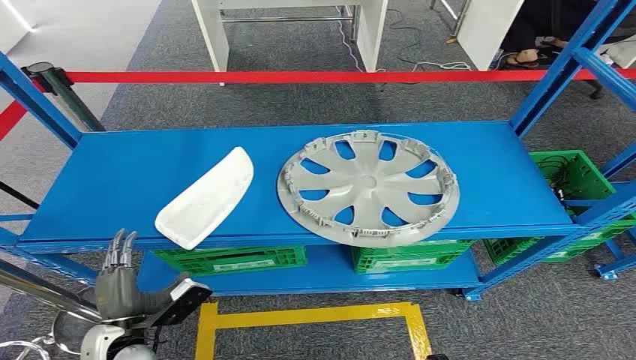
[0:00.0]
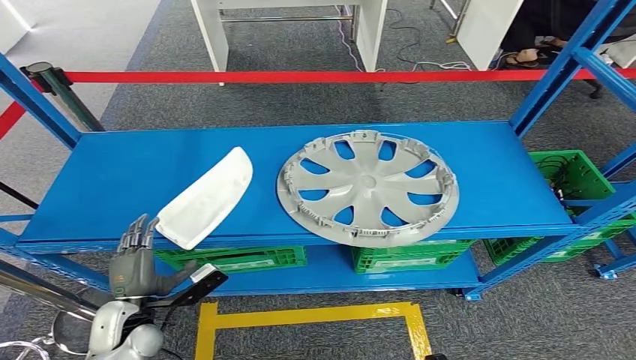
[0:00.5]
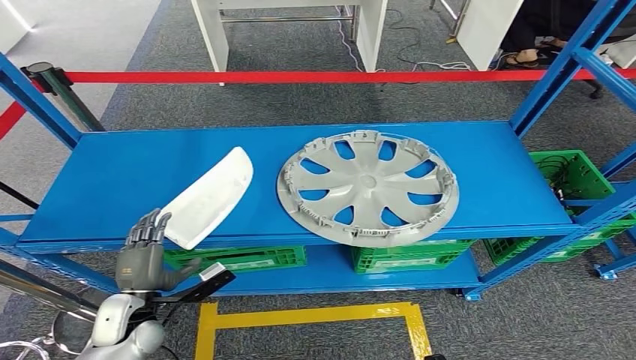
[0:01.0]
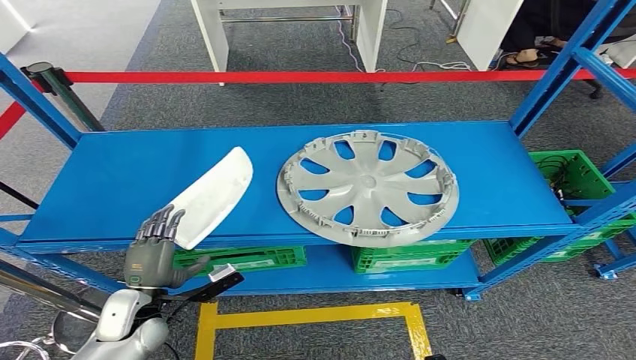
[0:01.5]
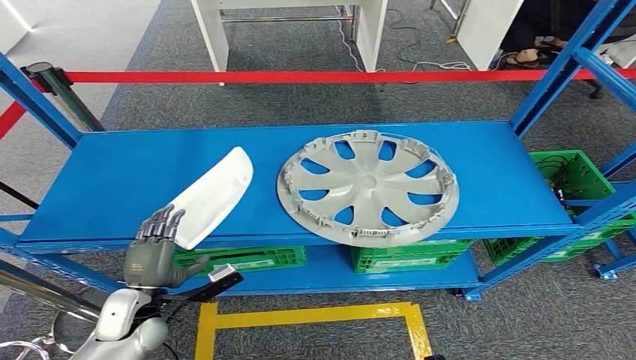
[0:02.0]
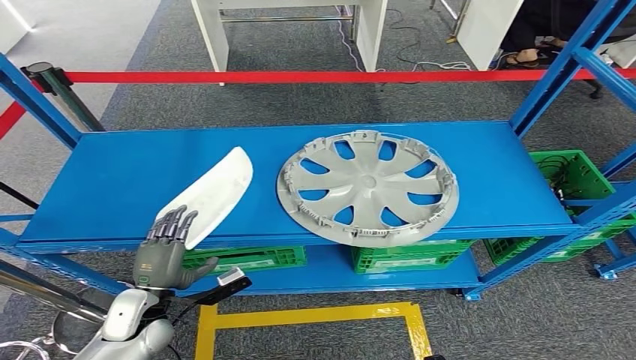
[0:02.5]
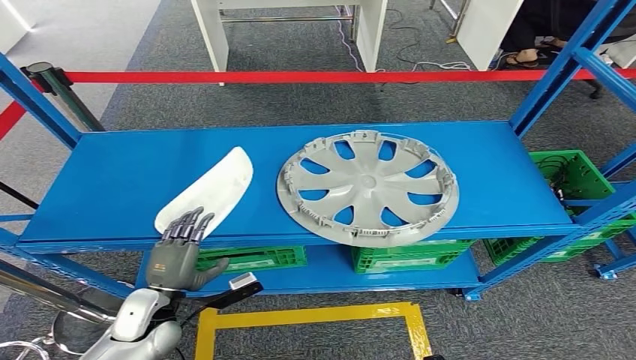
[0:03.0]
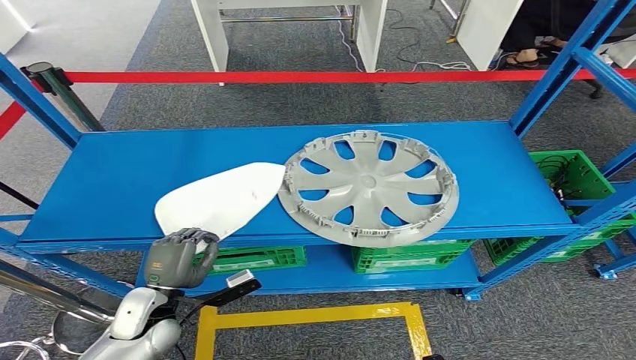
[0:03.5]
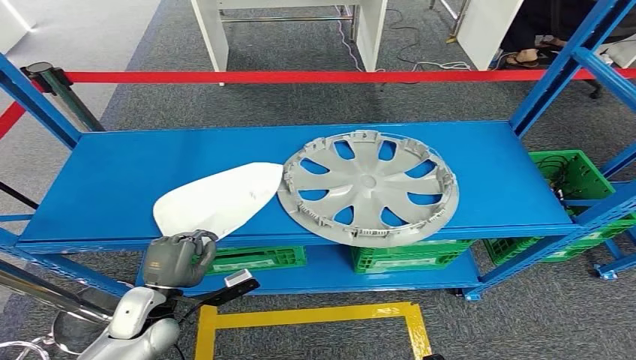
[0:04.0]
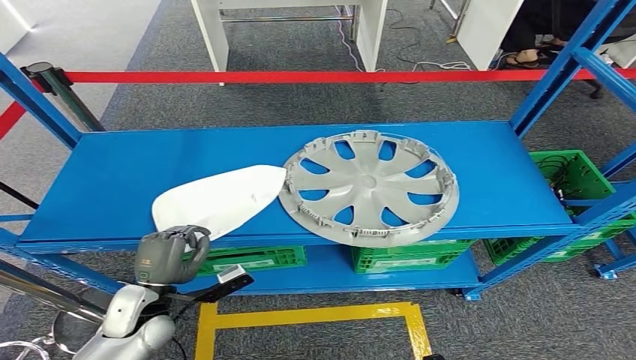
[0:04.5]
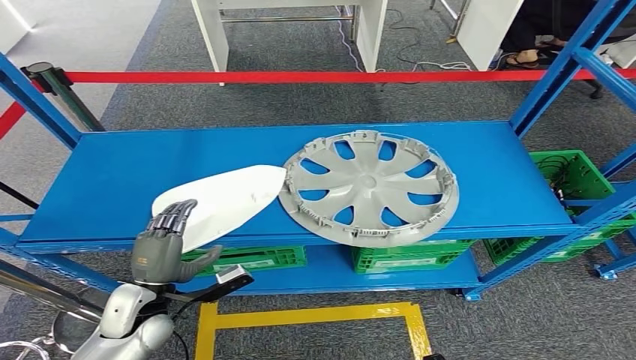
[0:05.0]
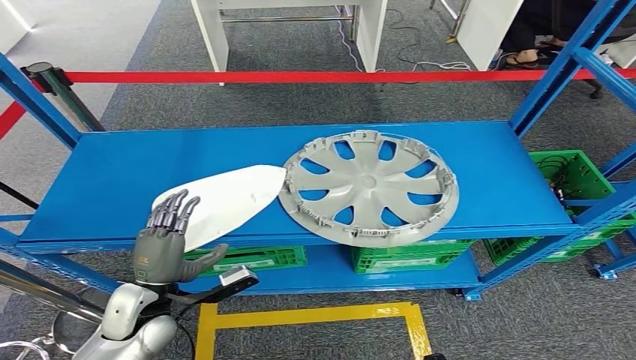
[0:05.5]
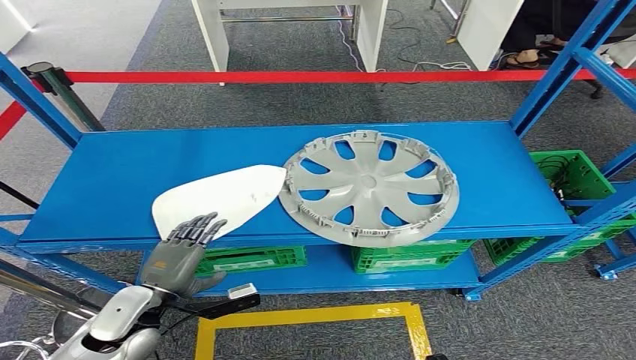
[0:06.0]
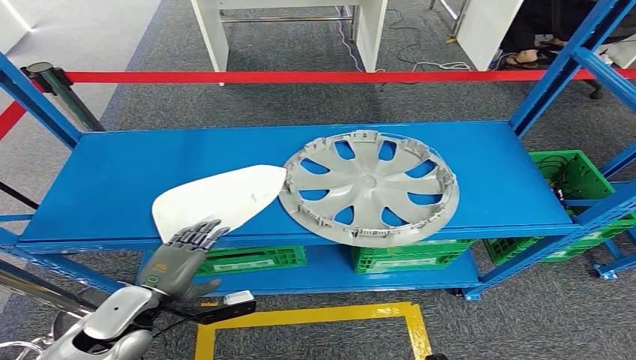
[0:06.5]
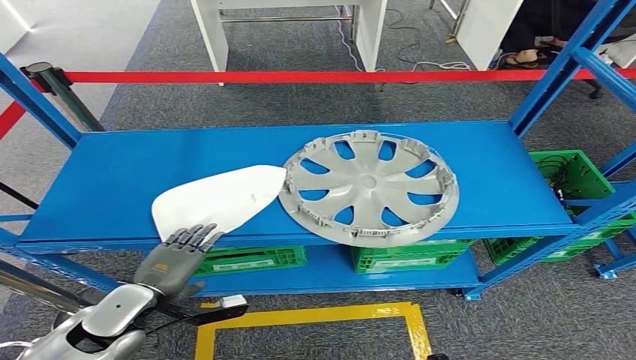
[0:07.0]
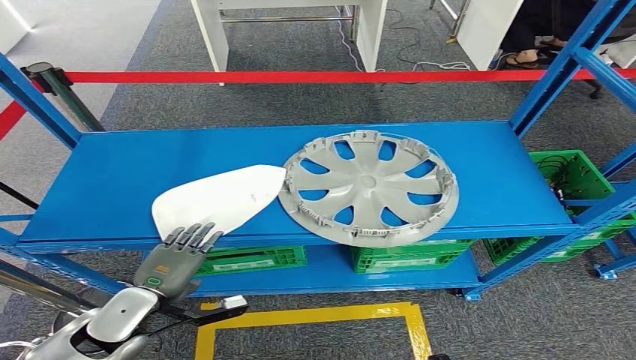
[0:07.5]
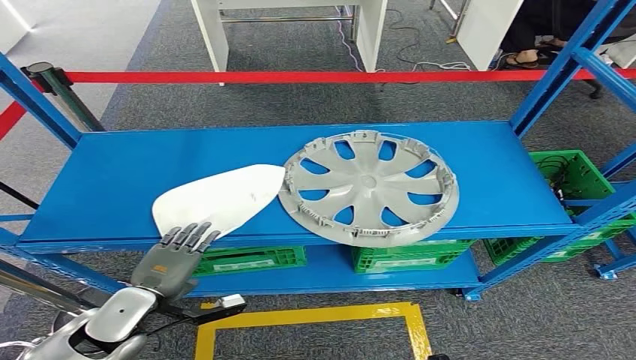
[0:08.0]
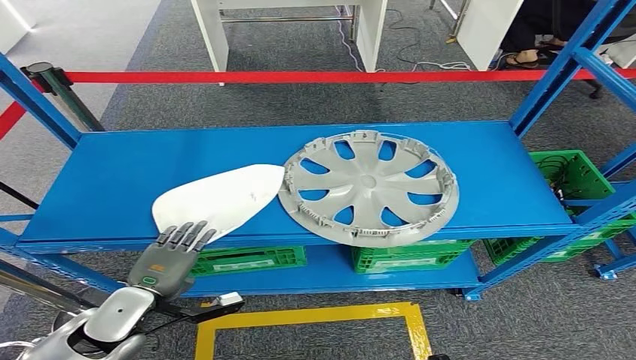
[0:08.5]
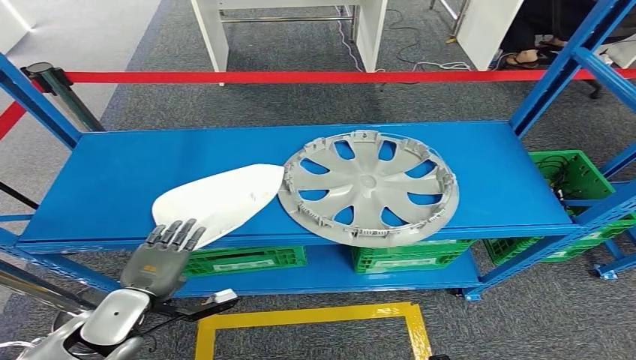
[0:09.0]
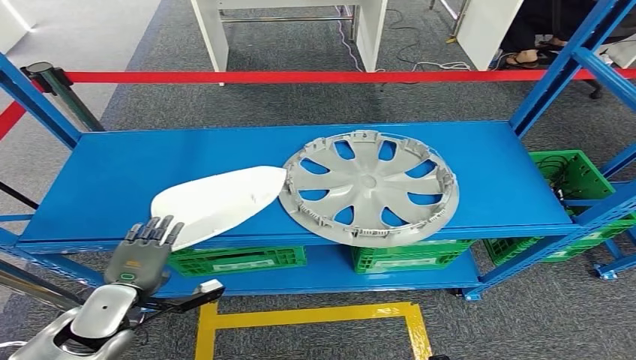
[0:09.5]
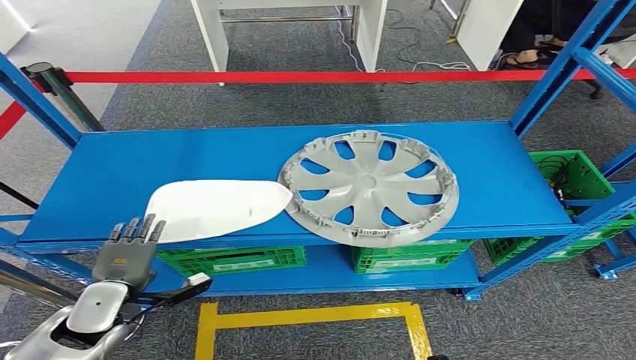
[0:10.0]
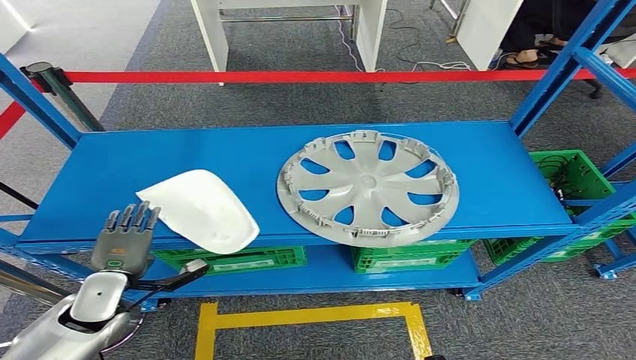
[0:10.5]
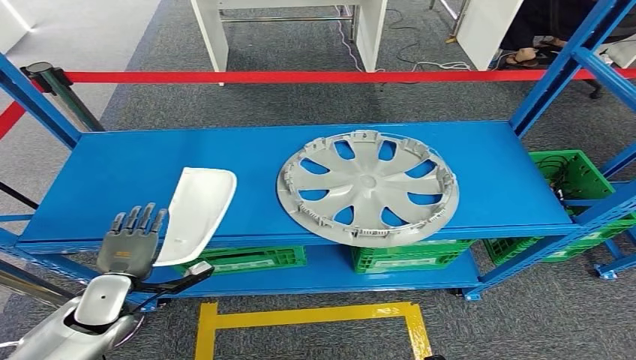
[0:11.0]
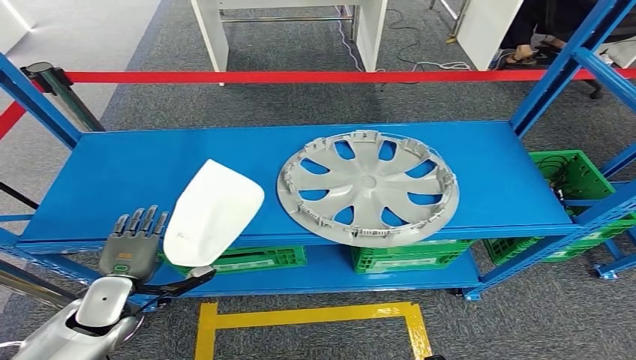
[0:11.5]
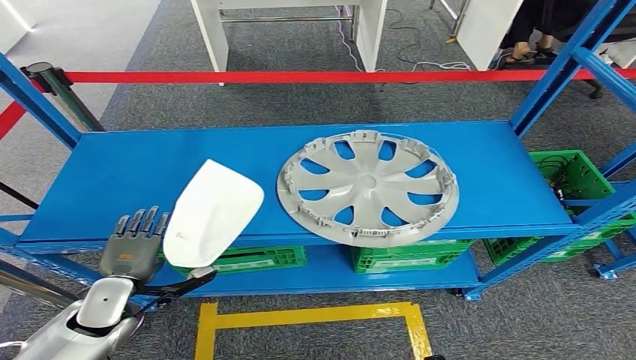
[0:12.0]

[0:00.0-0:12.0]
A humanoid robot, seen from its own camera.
0:02.0 to 0:06.0: There are only small adjustments of the hands.
0:08.0 to 0:10.0: The hands move only a little.
0:10.0 to 0:12.0: The hands move only a little.

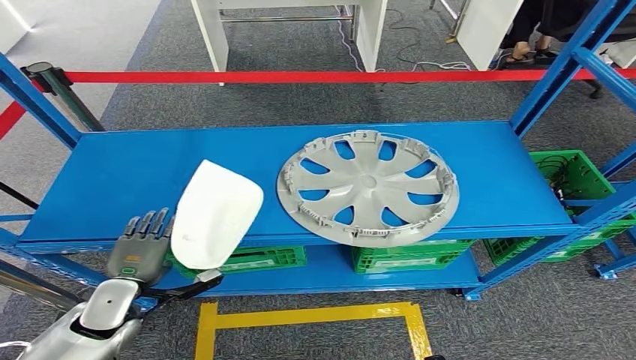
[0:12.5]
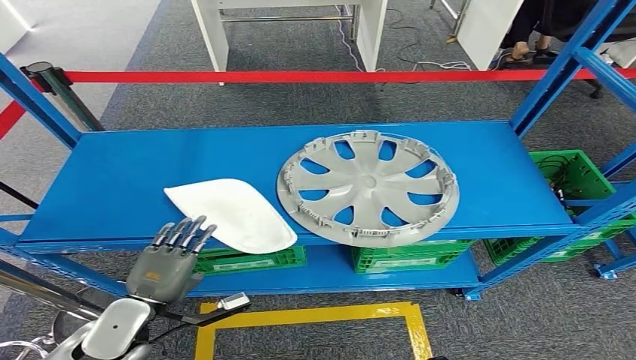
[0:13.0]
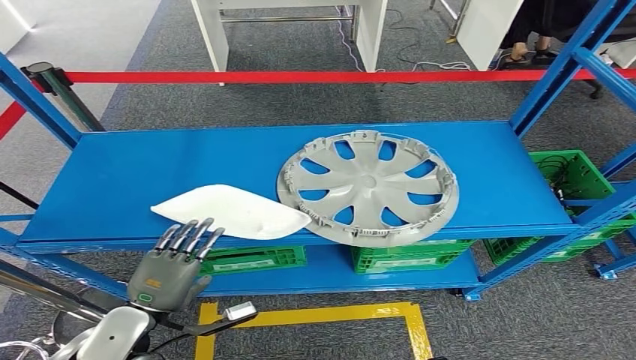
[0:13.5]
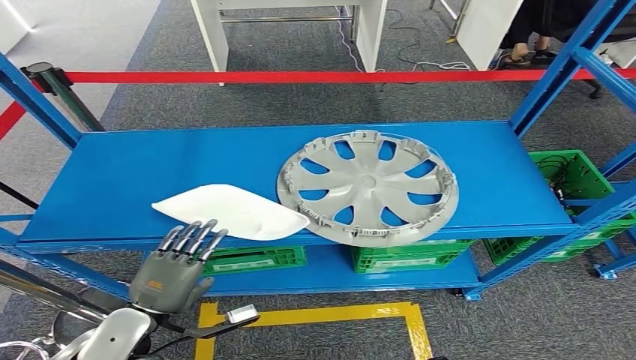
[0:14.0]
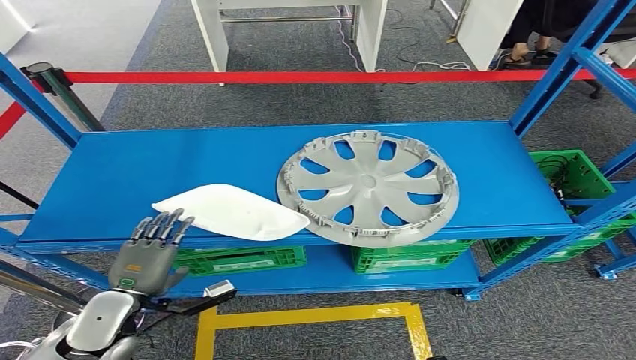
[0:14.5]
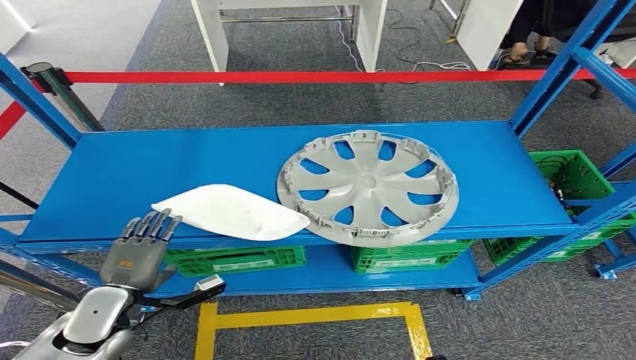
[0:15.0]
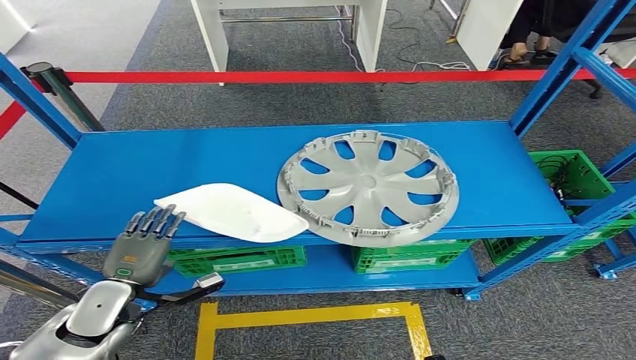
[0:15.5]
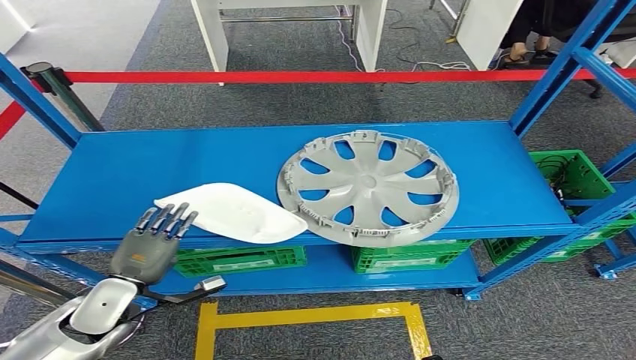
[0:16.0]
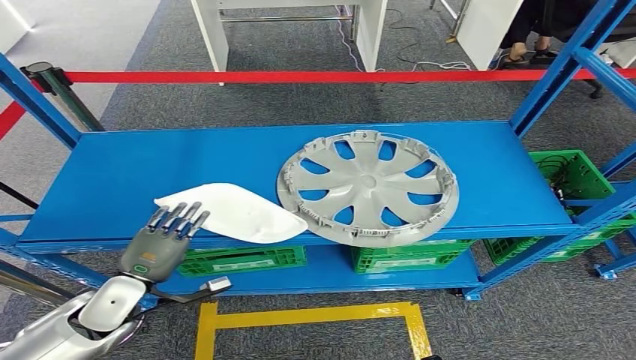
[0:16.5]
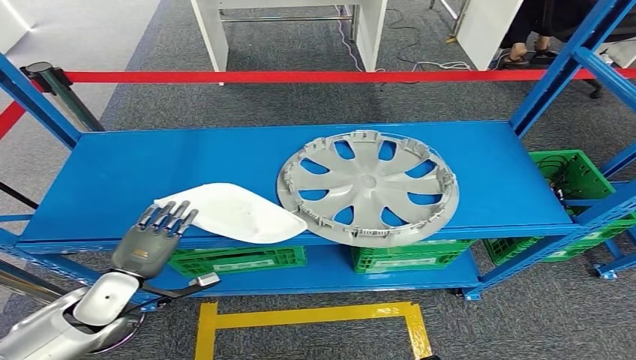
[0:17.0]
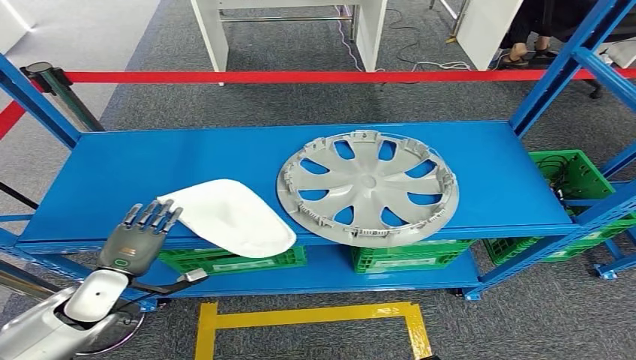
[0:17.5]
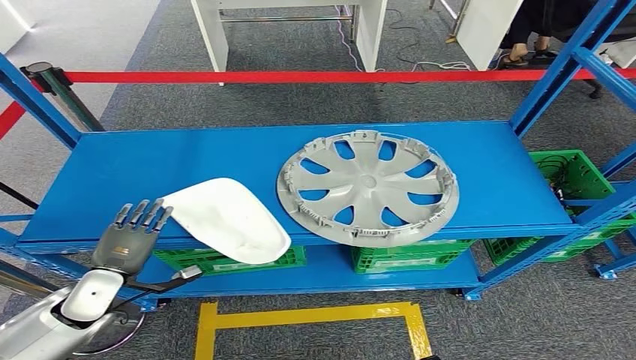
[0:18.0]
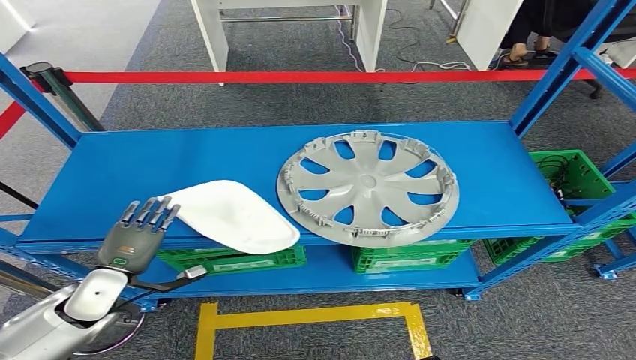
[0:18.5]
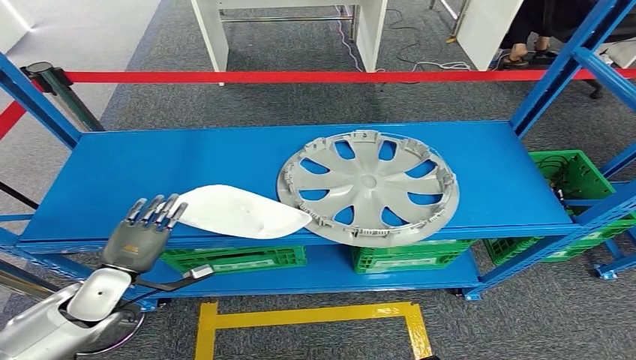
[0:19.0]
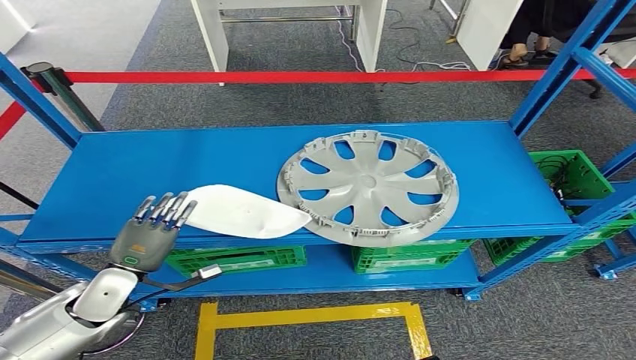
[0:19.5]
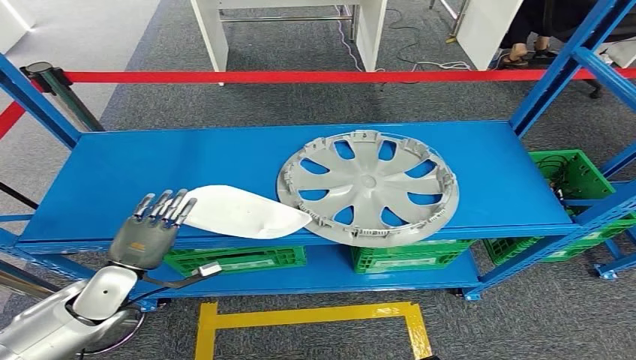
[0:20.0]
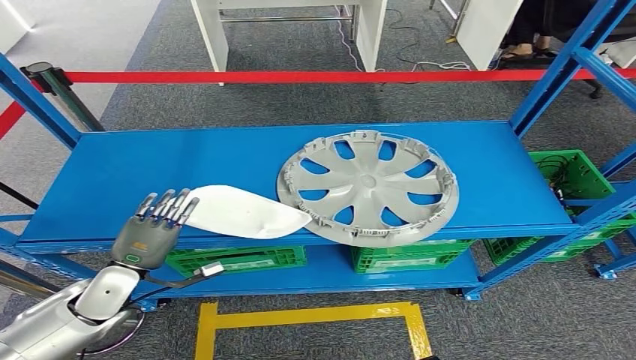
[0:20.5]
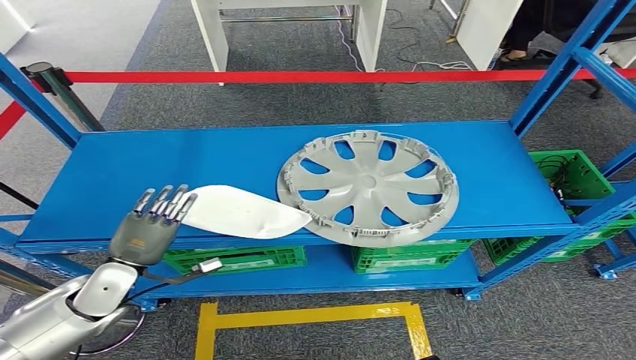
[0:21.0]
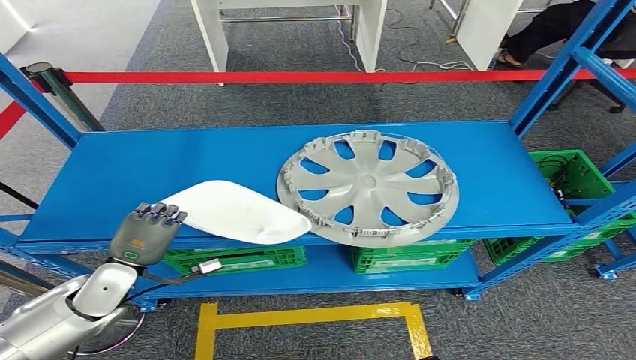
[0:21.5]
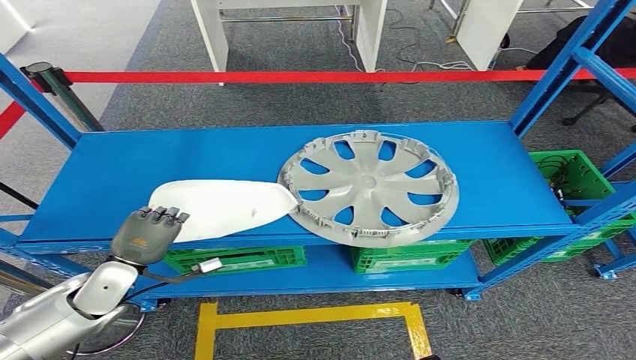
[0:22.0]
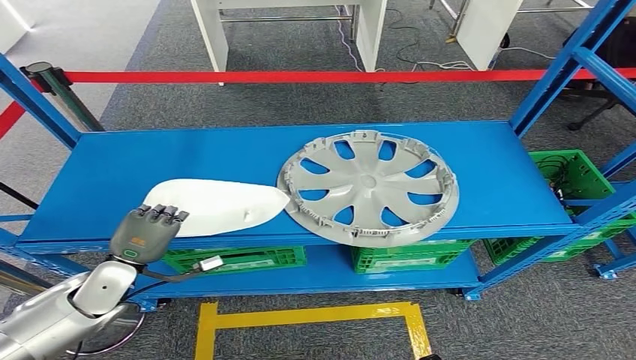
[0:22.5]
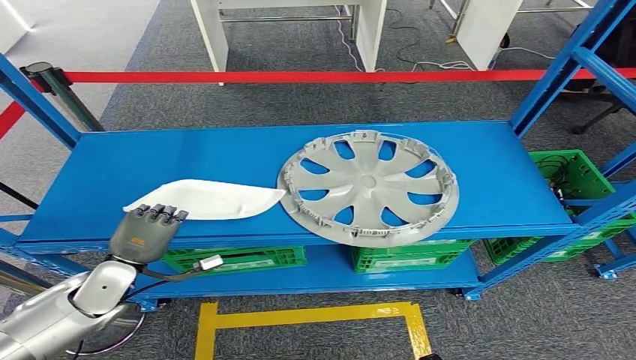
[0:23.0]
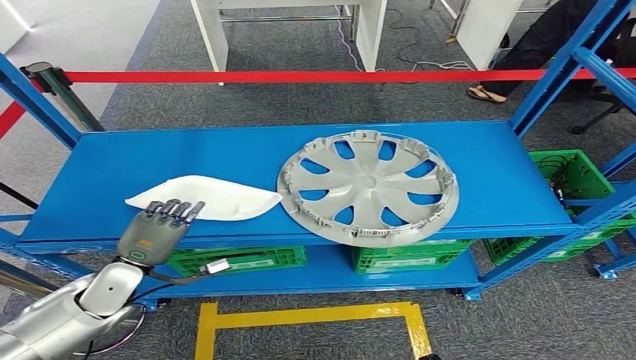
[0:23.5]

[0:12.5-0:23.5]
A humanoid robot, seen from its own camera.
0:14.5 to 0:16.0: The hands stay close to where they were, moving slightly.
0:16.0 to 0:20.0: There are only small adjustments of the hands.
0:20.0 to 0:21.5: Both hands stay put.
0:21.5 to 0:23.5: Neither hand changes place.
